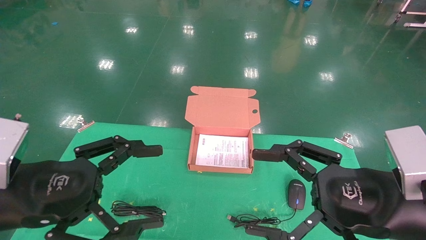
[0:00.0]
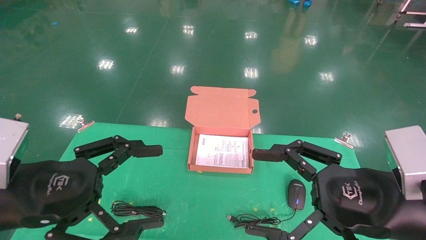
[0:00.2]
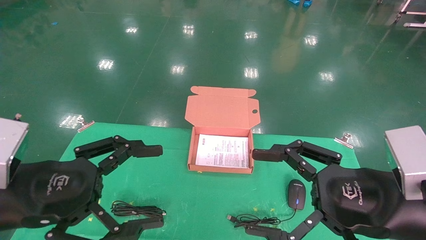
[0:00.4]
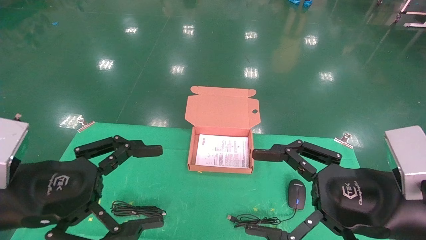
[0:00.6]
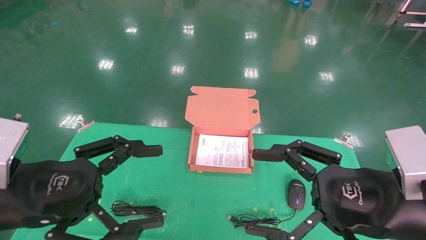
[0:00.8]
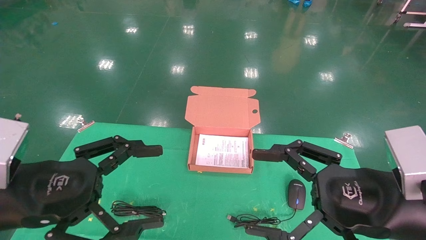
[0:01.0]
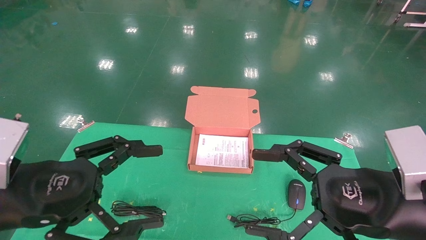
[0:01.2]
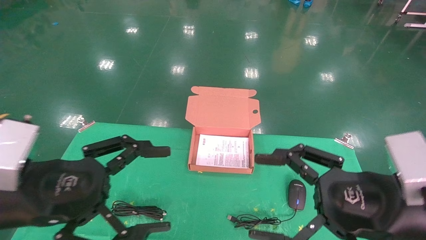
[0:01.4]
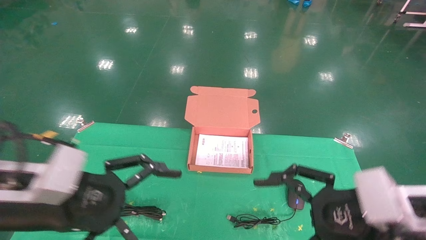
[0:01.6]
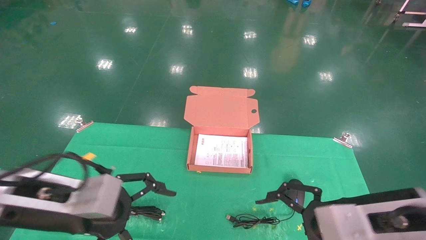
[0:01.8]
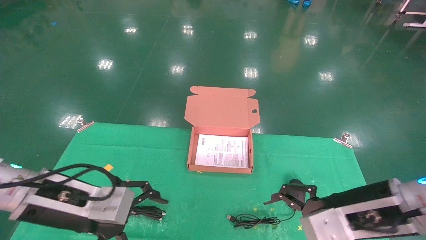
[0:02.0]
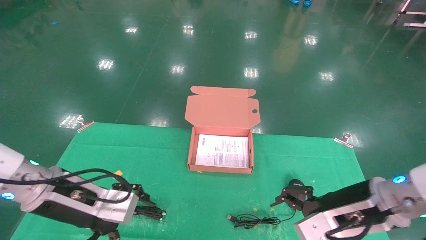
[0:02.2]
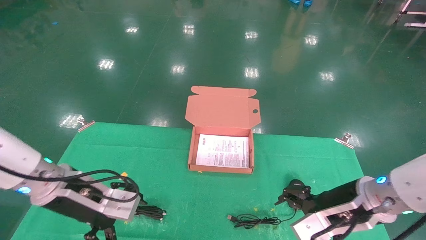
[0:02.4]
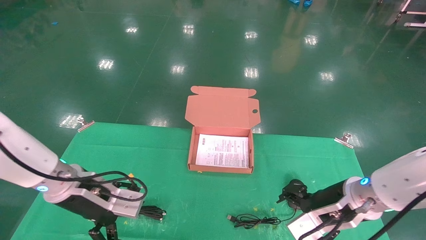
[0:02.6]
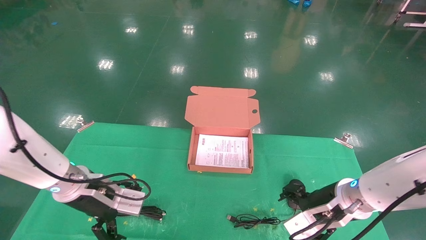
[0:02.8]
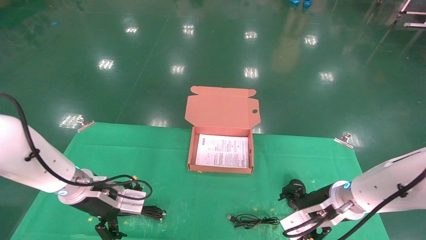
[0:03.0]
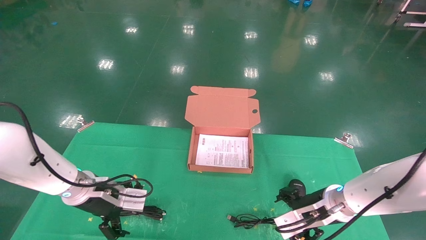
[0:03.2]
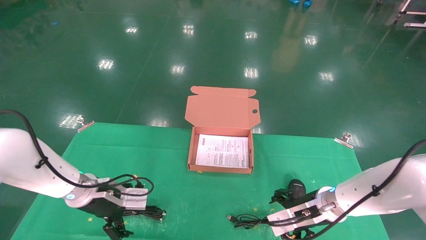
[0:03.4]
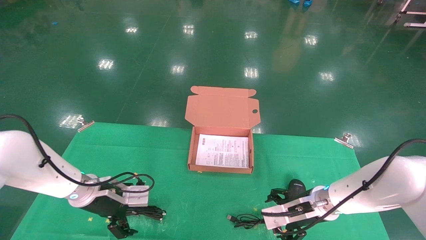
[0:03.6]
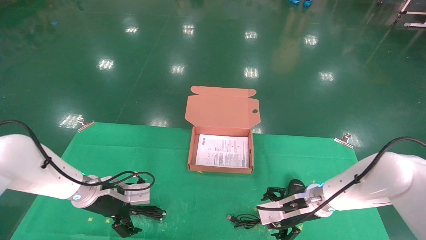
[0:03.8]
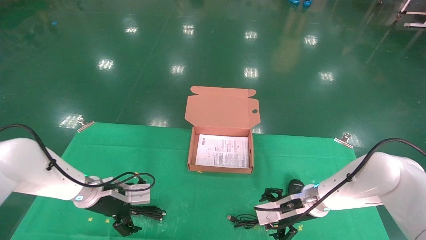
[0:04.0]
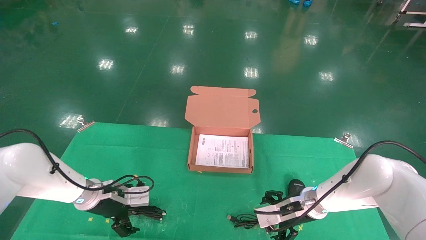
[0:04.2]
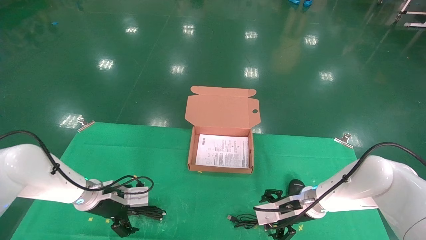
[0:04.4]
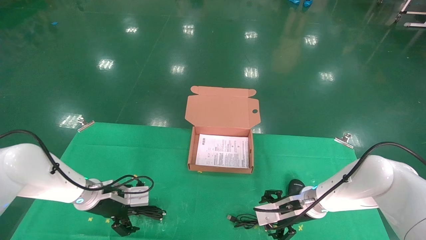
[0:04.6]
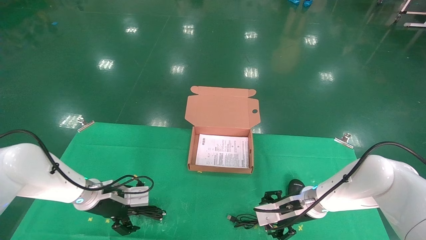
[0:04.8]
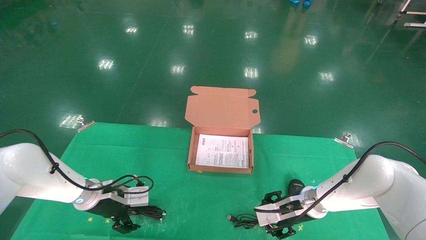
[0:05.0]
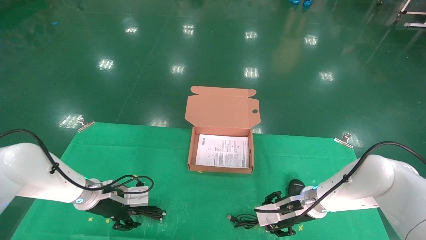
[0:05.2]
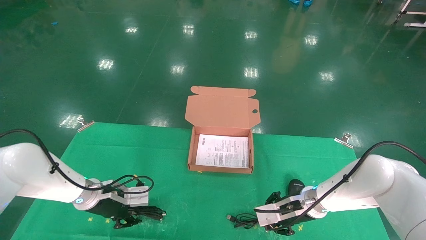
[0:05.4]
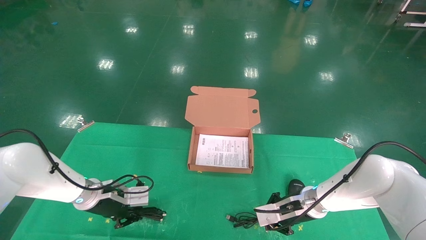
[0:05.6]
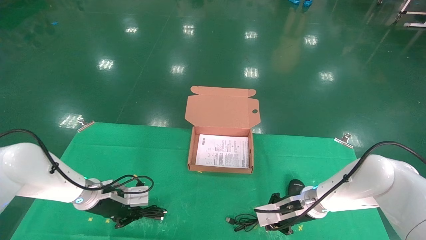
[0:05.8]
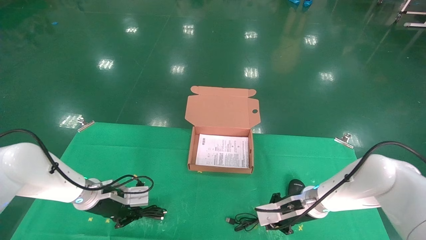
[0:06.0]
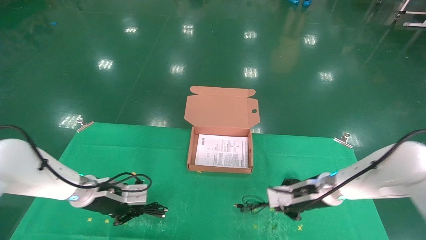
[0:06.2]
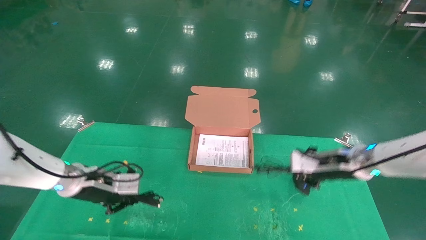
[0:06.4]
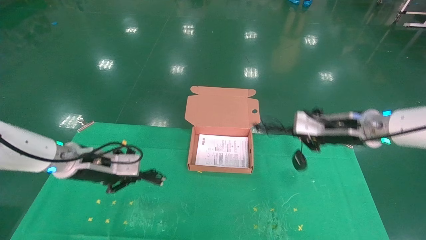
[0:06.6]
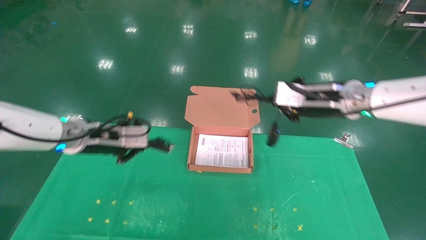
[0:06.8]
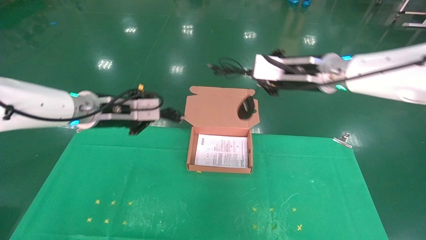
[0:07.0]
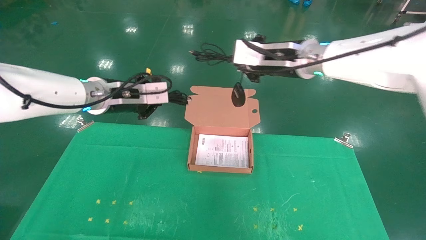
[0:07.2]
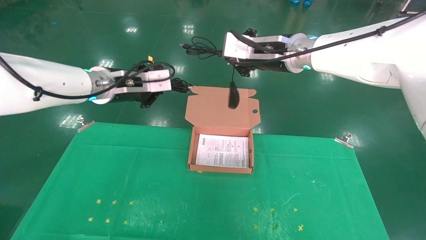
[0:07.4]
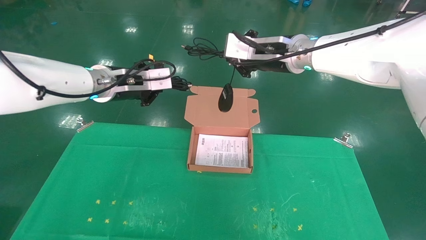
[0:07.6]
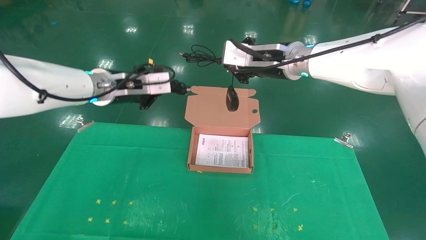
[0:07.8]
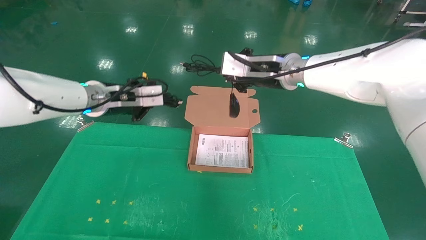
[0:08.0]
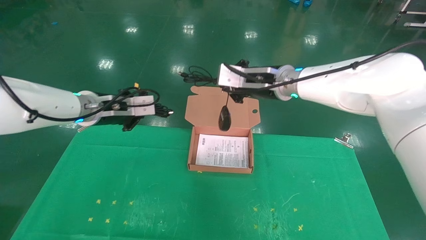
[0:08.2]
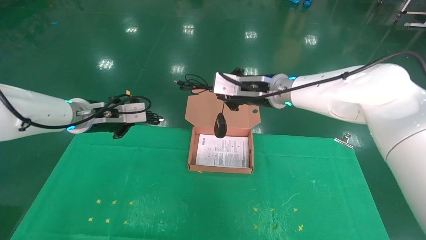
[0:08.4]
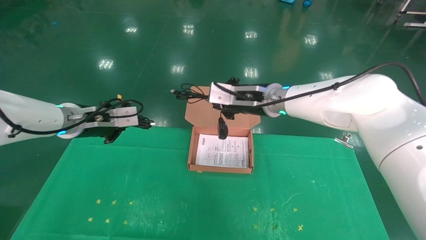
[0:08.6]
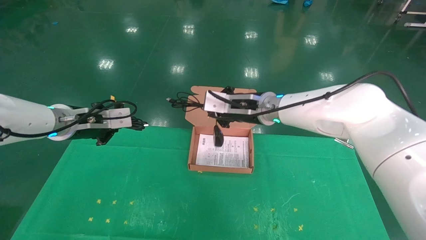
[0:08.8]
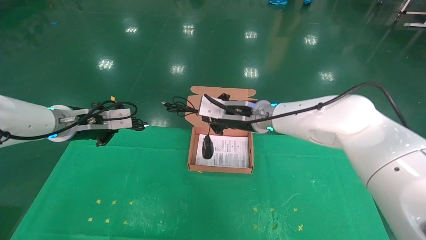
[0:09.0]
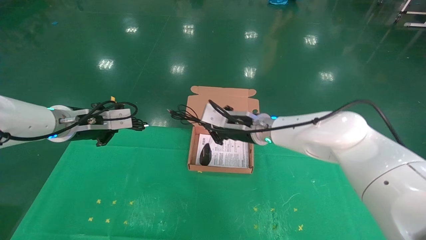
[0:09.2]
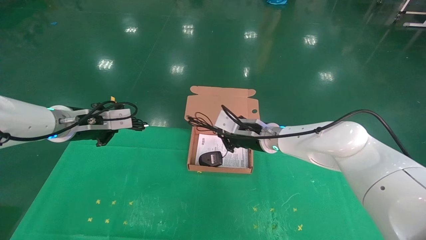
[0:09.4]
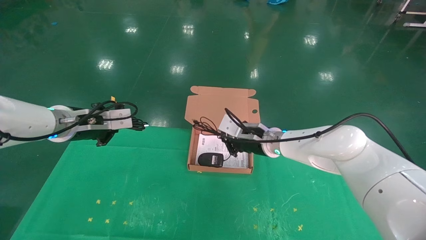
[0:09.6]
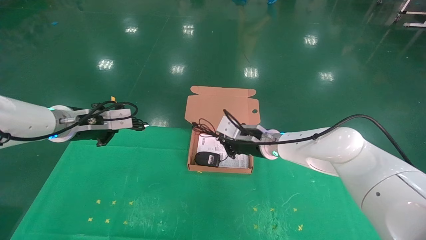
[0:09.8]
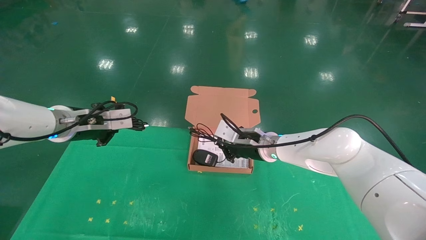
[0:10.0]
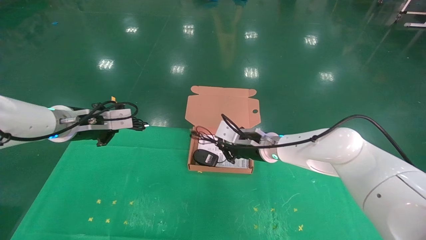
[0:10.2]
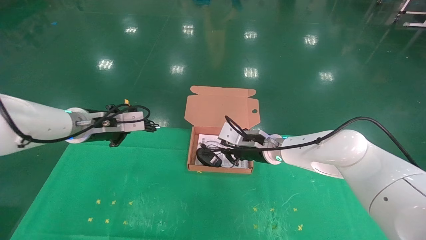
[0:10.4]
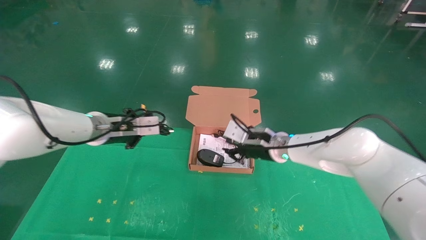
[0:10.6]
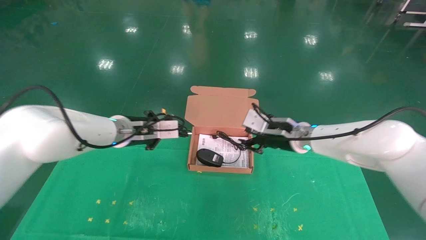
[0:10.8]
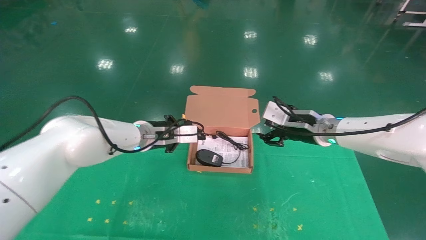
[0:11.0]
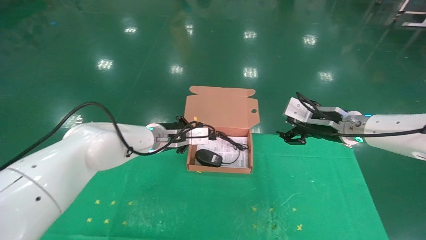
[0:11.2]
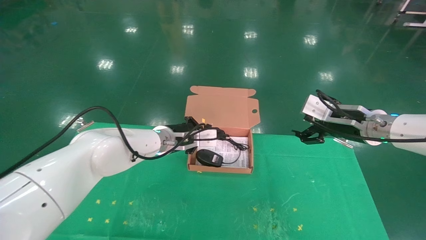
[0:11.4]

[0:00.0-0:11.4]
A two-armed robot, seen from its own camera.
Task of the whole recording: grasp data cable left put into box grasp mouse right put into box.
Step, 0:01.8 to 0:05.8: Grab and pick up both the mouse and power cord from the accessory packaging area at the same time.
0:00.0 to 0:01.4: The grippers stay close to where they were, moving slightly.
0:01.4 to 0:02.8: Both grippers travel together forward and downward, some 15 cm.
0:02.8 to 0:04.2: Both grippers move forward and downward, some 15 cm.
0:04.2 to 0:05.6: The left gripper closes up. Meanwhile the right gripper closes up.
0:05.6 to 0:07.2: Both grippers move upward, about 30 cm.
0:07.2 to 0:08.6: The left gripper goes roughly 5 cm to the left; the right gripper shifts approximately 10 cm downward and to the left.
0:08.6 to 0:10.0: The right gripper travels downward by roughly 15 cm.
0:10.0 to 0:11.4: The left gripper shifts about 20 cm to the right and forward. Meanwhile the right gripper shifts roughly 25 cm to the right, backward and upward, and opens up.

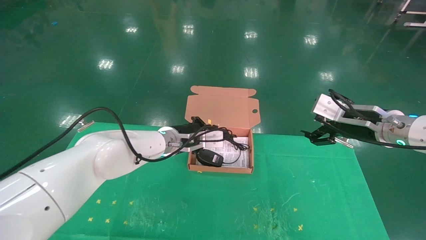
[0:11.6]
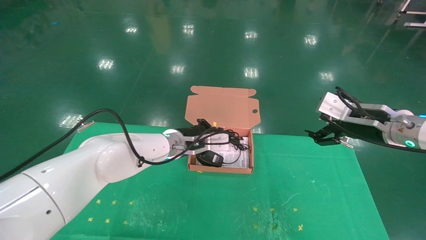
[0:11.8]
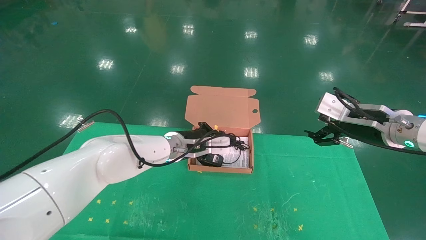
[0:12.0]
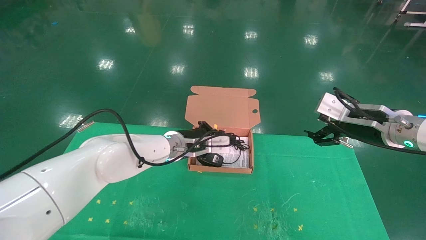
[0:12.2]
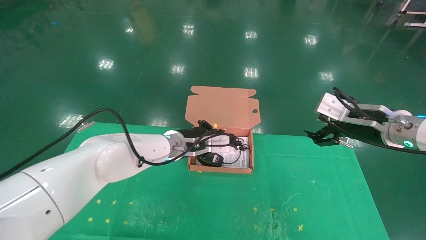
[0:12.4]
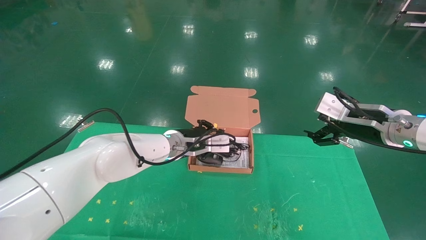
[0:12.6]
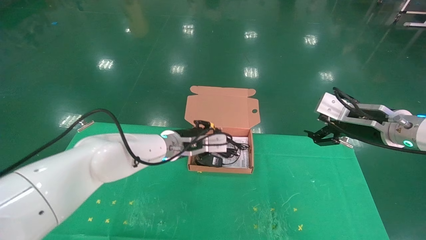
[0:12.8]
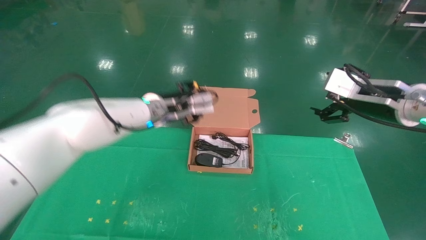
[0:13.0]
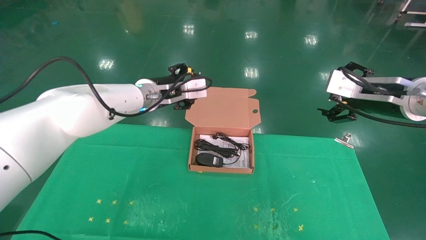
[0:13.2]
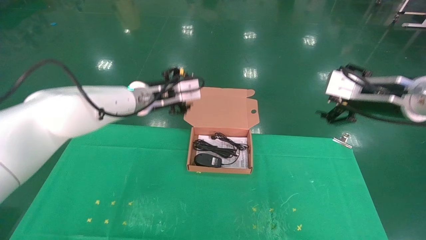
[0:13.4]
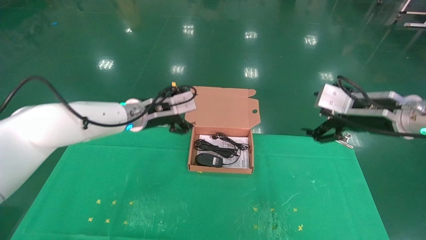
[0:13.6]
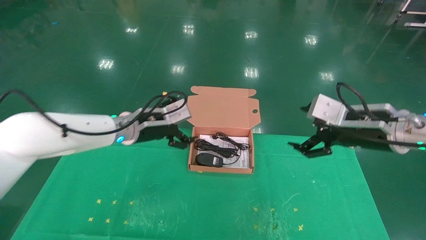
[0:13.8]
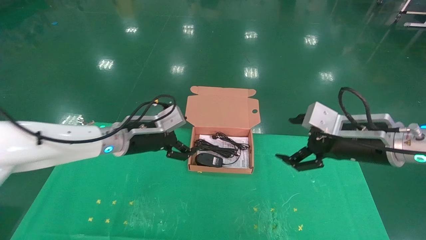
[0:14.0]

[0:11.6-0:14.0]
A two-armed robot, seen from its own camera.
Task of the whole recording: grasp data cable left put into box grasp mouse right put into box.
0:11.6 to 0:12.8: The left gripper is displaced upward by roughly 5 cm, and opens.
0:12.8 to 0:14.0: The right gripper shifts by roughly 10 cm. The left gripper travels to the left and backward by some 10 cm, and opens its fingers.

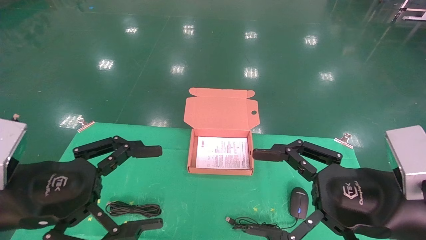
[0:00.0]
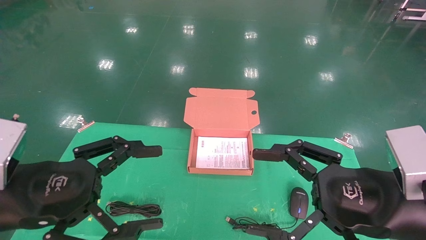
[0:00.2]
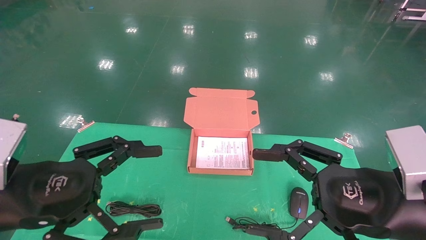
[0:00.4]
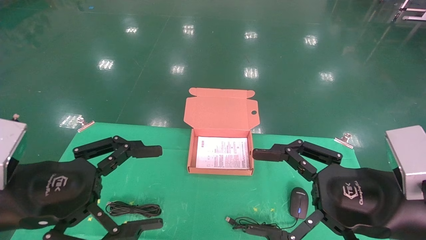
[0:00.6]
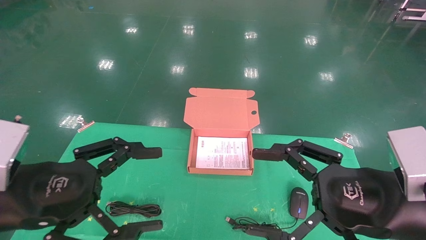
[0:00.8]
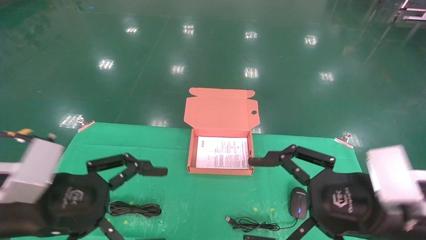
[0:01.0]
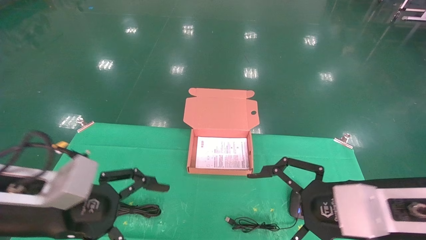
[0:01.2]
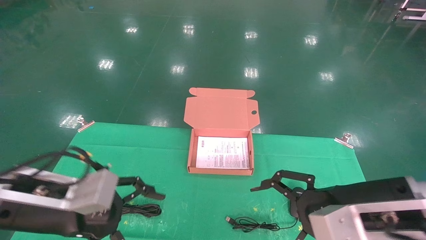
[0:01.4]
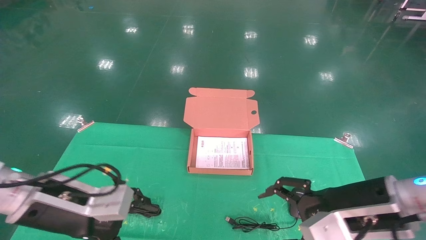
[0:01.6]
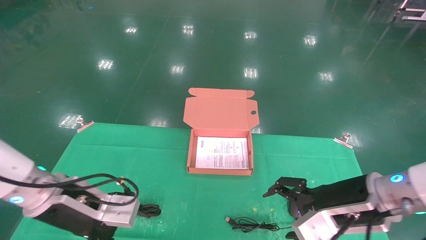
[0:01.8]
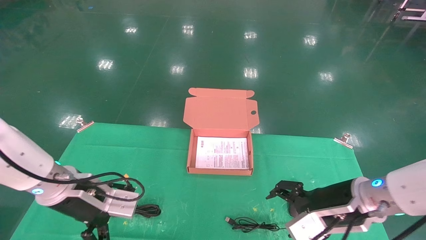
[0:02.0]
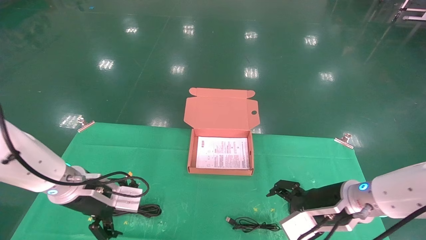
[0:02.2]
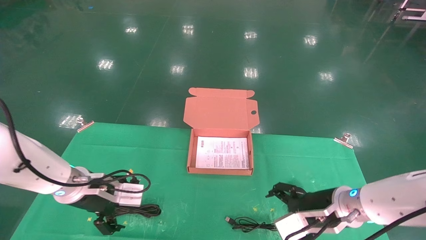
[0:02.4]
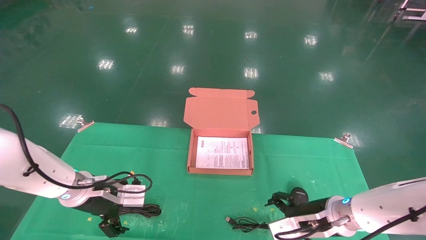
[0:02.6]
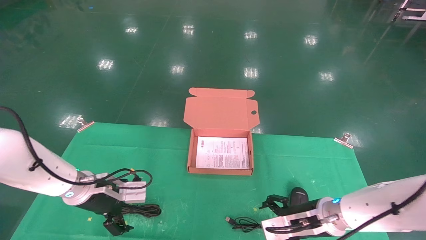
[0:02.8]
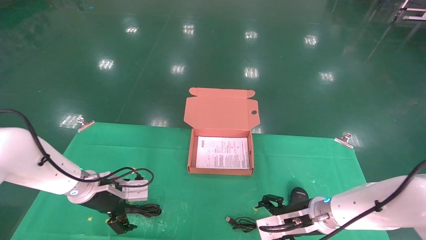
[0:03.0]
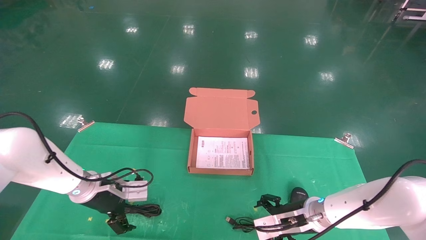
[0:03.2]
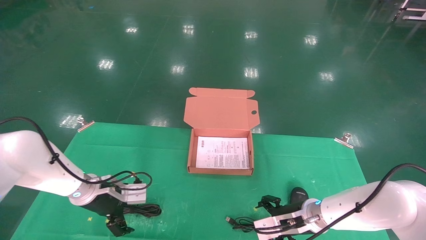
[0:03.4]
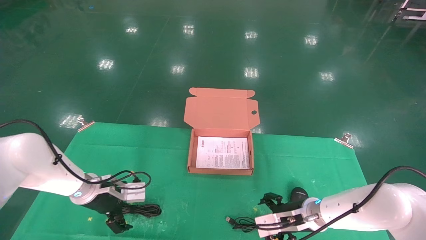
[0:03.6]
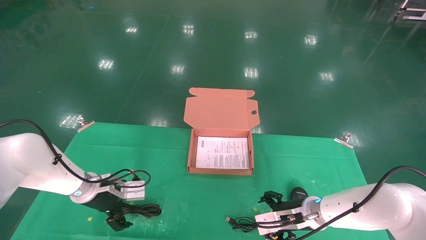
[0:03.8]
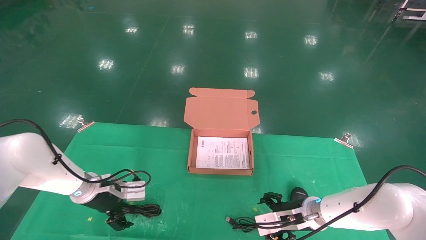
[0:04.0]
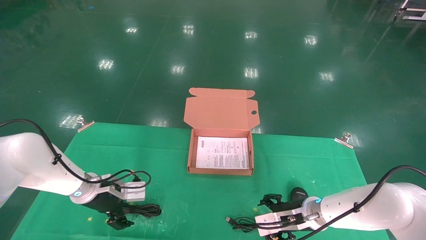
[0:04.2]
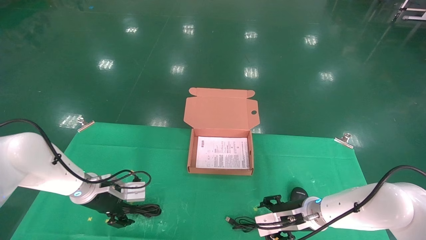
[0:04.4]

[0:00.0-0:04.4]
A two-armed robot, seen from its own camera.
Task of the whole recording: grasp data cable left put into box grasp mouse right put into box.
0:01.4 to 0:03.0: Both grippers travel together forward and downward, about 20 cm.
0:03.0 to 0:04.4: The grippers move only a little.
